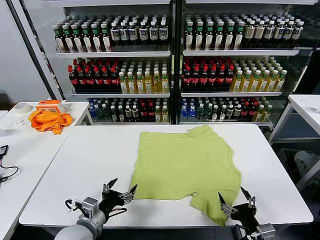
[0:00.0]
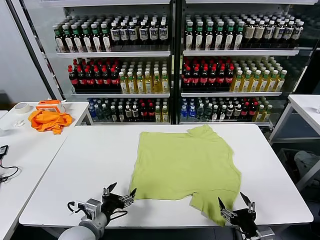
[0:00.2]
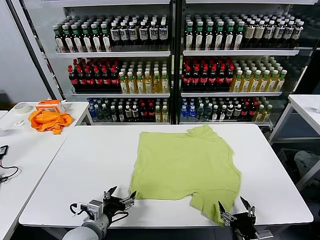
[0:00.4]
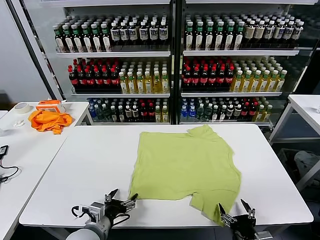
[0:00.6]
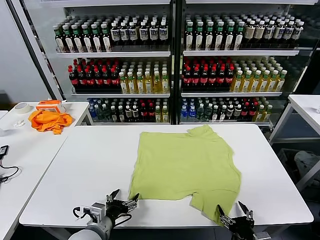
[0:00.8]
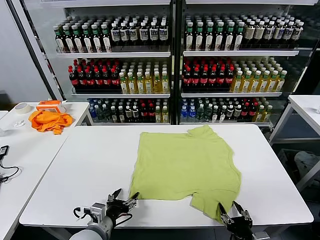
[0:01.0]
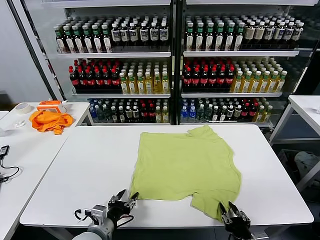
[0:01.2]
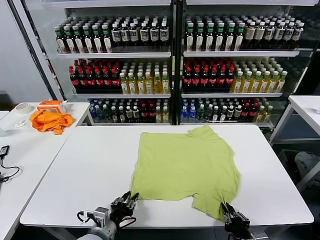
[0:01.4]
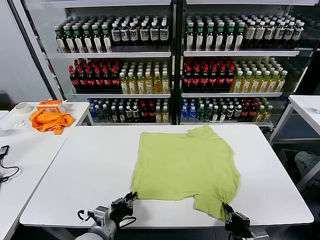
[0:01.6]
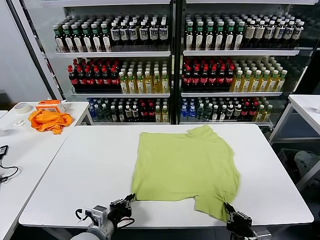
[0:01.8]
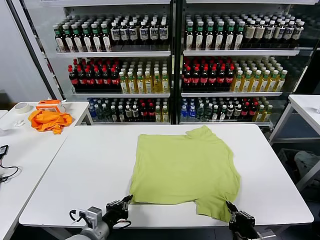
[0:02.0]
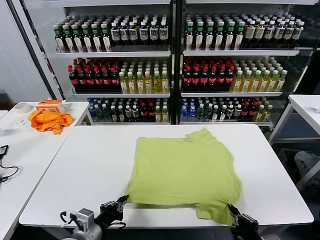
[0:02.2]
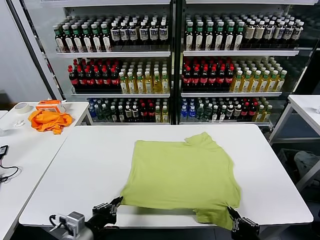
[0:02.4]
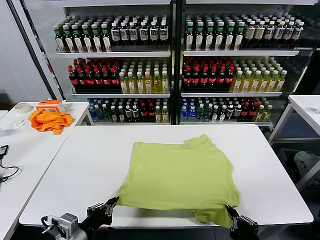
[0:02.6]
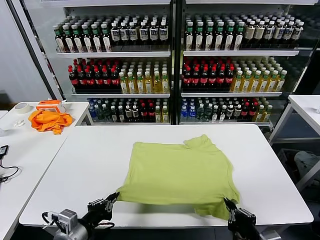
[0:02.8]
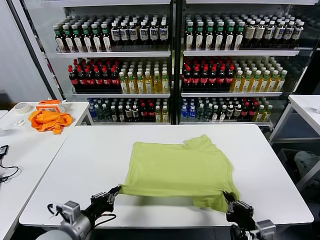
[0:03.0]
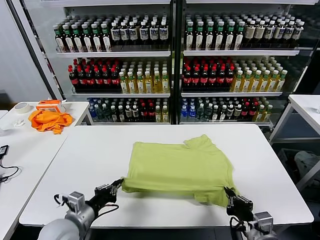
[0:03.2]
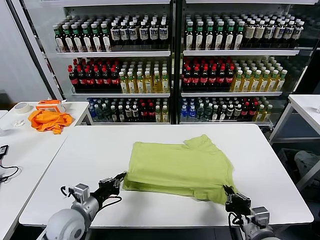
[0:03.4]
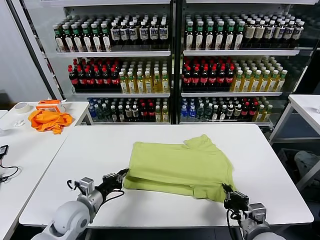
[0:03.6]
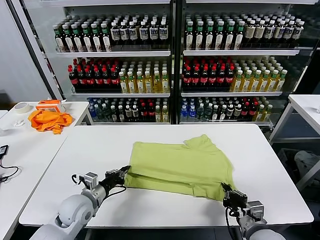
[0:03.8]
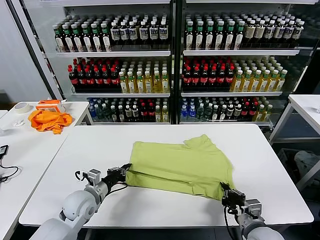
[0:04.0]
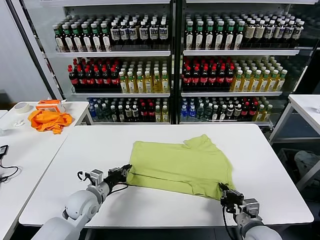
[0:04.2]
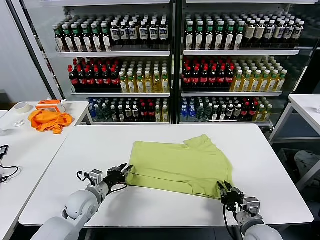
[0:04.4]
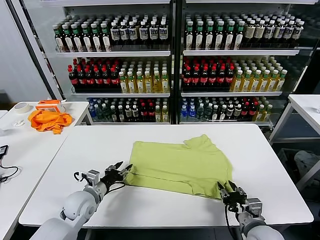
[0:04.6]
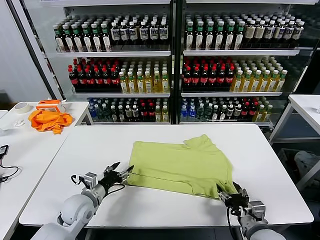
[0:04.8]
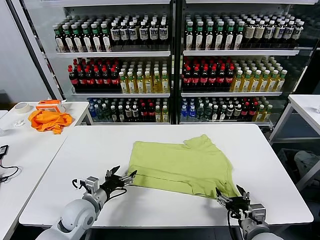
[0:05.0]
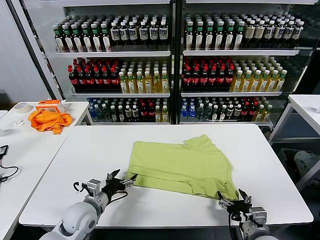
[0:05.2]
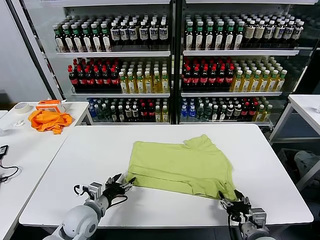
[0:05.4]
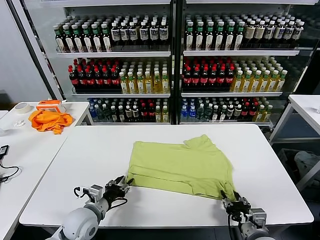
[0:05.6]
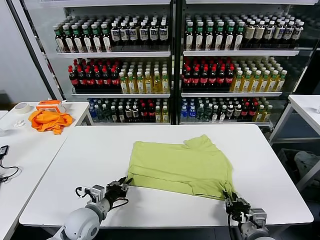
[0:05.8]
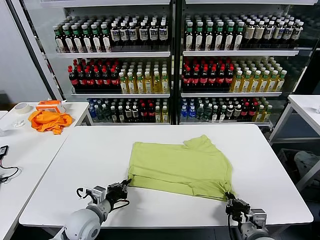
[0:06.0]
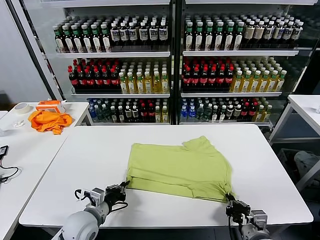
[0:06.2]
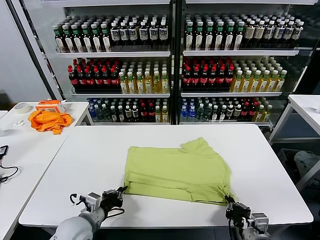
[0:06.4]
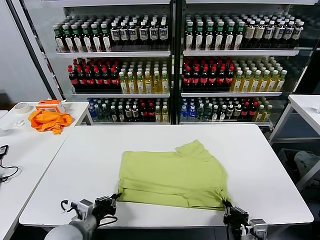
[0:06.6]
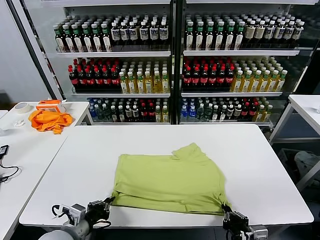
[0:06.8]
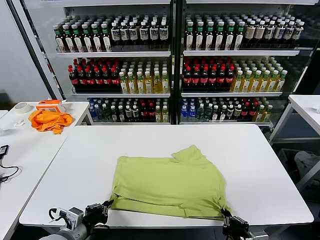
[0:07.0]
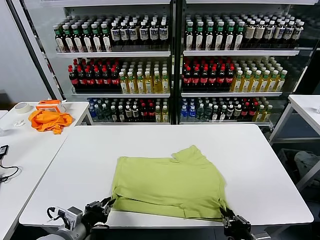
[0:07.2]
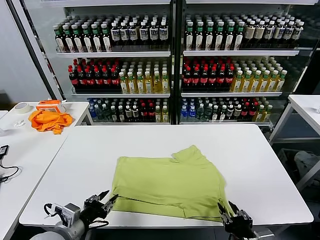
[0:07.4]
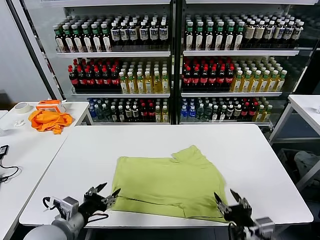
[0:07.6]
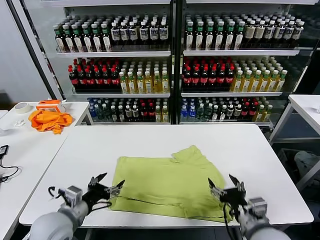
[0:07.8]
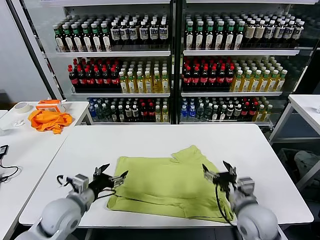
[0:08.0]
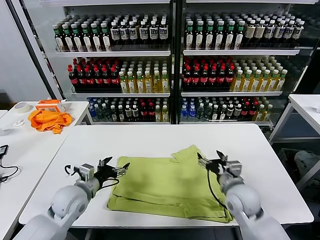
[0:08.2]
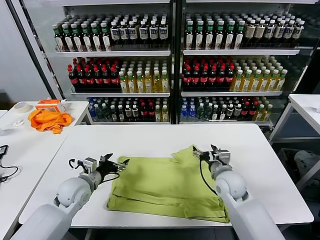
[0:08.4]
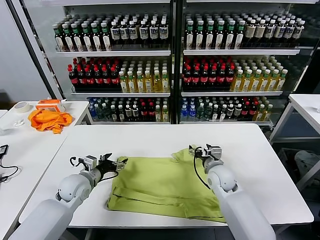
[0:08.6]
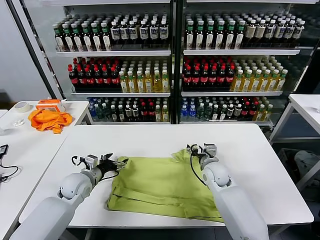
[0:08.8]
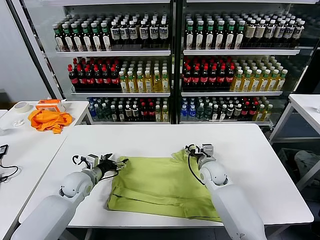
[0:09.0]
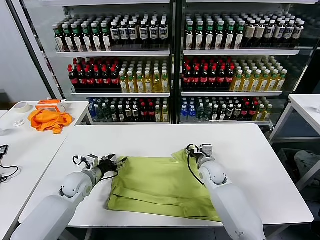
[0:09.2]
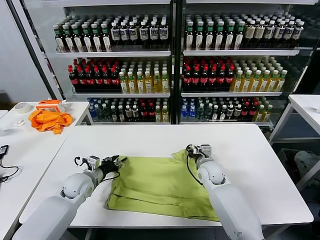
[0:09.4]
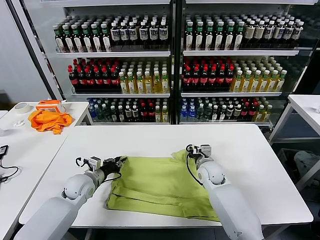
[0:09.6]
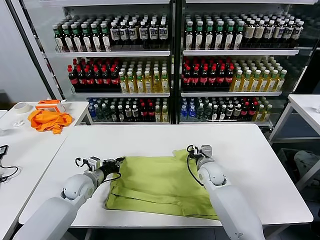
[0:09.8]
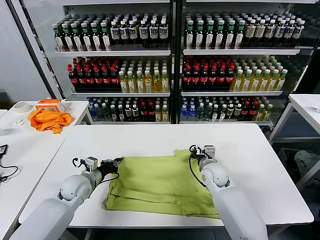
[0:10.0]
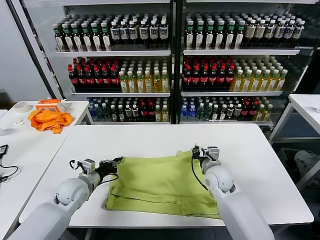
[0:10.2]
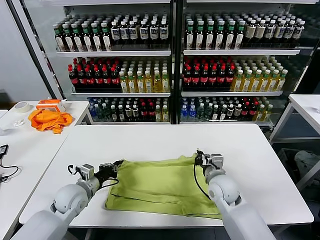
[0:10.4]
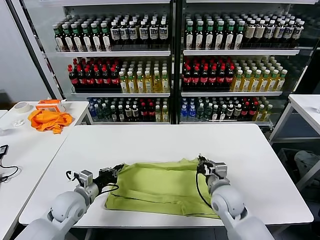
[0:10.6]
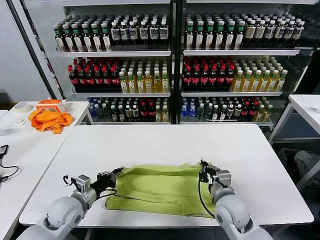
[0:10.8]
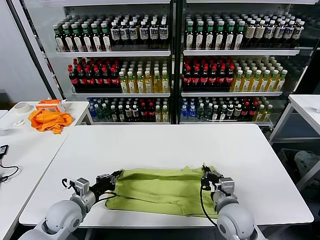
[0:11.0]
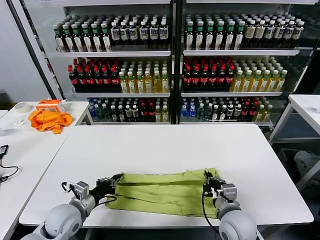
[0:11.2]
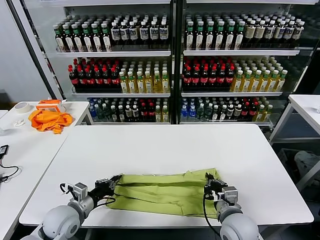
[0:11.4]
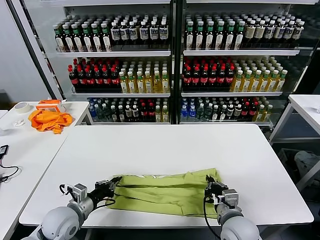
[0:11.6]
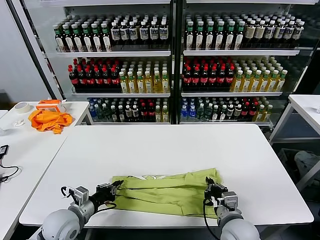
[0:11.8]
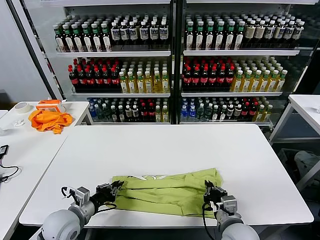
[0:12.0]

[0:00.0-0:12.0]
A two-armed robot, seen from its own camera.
Task of the whole recording: fold and organize the clothes.
Step, 0:00.0 to 0:01.6: use both grippers simultaneously to clamp the lower edge of the clothing fabric.
Step, 0:01.8 to 0:04.4: use both grippers to drag the lower edge of the fabric forward and fold it over the upper edge.
Step, 0:04.8 to 0:07.2: Drag the clothes downward with both gripper.
Step, 0:07.6 to 0:09.8: use both grippers simultaneously to clamp the upper edge of the clothing fabric.
0:01.6 to 0:03.0: The left gripper travels upward and to the left by roughly 10 cm. The right gripper is displaced upward by roughly 5 cm.
0:03.0 to 0:04.4: The left gripper goes approximately 15 cm forward and downward, and opens up. Meanwhile the right gripper goes approximately 5 cm forward, and opens.
0:04.4 to 0:06.0: The left gripper is displaced backward by roughly 5 cm, and opens, then closes once more. Meanwhile the right gripper closes up.
0:06.0 to 0:07.6: The right gripper heads upward, covering some 10 cm, and opens up; the left gripper is displaced upward and backward by approximately 10 cm, and opens up.
0:07.6 to 0:09.0: The right gripper shifts some 30 cm forward. Meanwhile the left gripper travels forward and downward by some 20 cm.
0:09.0 to 0:10.4: The left gripper heads backward, covering approximately 5 cm, and closes up; the right gripper goes approximately 10 cm backward, and closes up.
0:10.4 to 0:12.0: The right gripper travels backward by approximately 15 cm. Meanwhile the left gripper is displaced backward by approximately 10 cm.

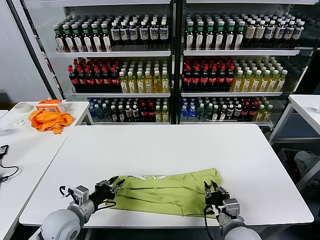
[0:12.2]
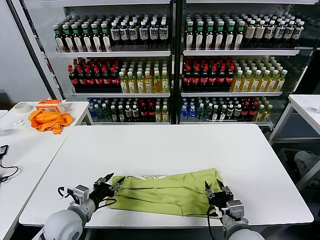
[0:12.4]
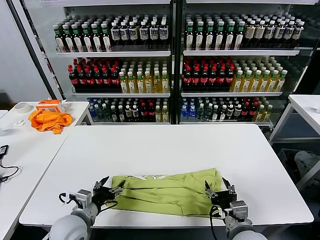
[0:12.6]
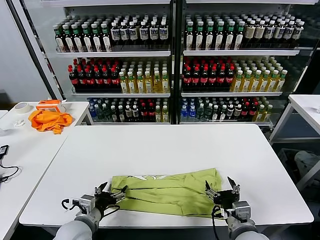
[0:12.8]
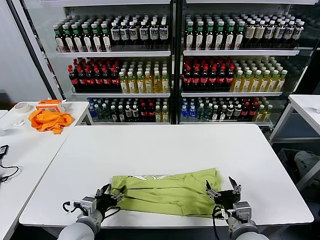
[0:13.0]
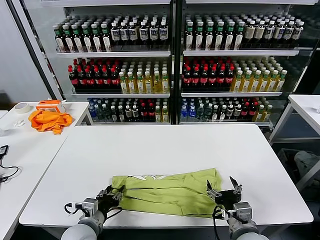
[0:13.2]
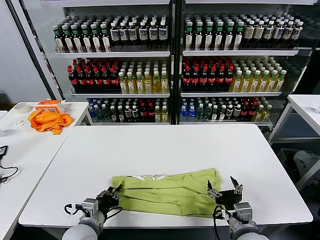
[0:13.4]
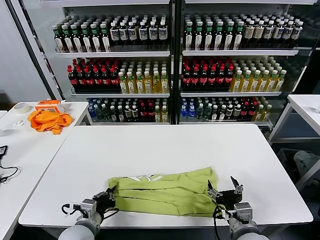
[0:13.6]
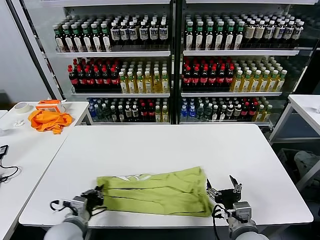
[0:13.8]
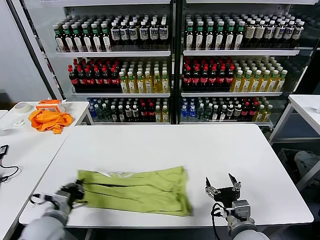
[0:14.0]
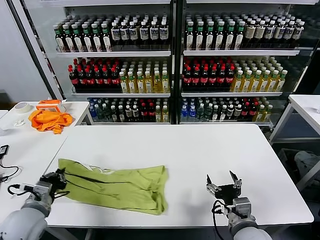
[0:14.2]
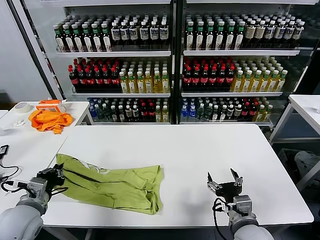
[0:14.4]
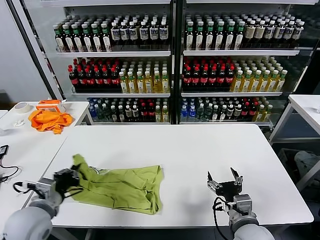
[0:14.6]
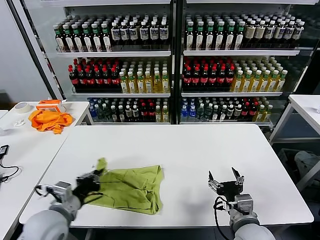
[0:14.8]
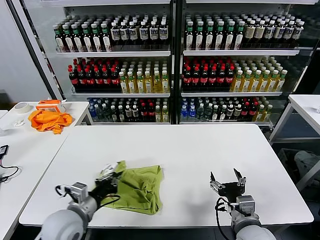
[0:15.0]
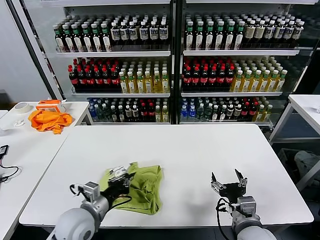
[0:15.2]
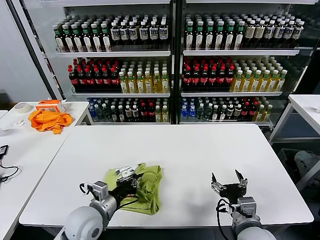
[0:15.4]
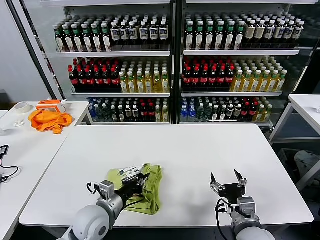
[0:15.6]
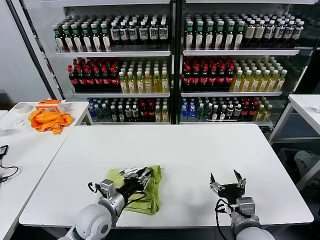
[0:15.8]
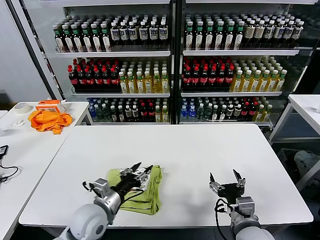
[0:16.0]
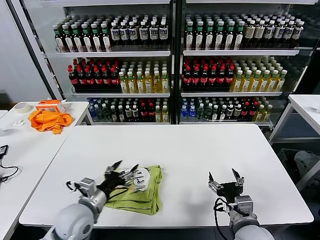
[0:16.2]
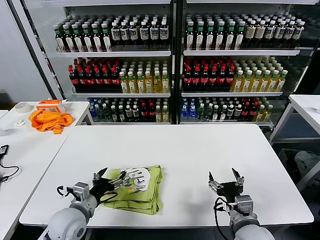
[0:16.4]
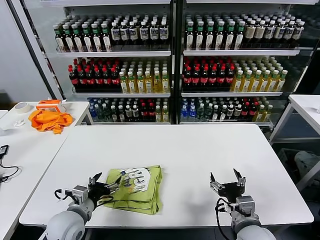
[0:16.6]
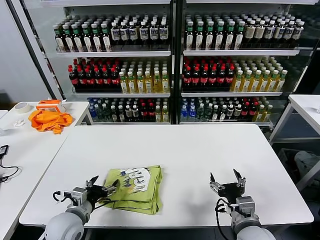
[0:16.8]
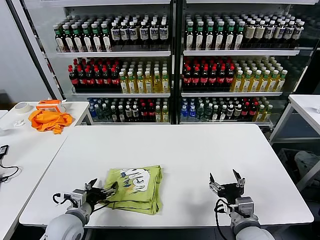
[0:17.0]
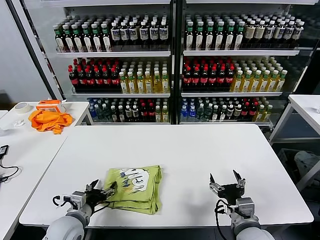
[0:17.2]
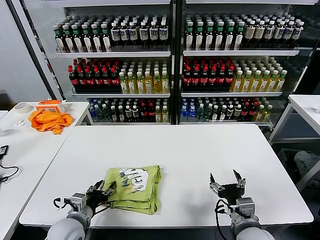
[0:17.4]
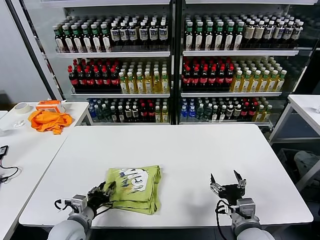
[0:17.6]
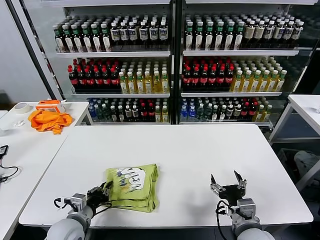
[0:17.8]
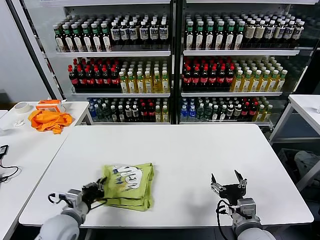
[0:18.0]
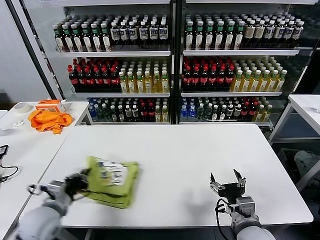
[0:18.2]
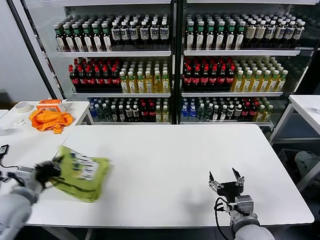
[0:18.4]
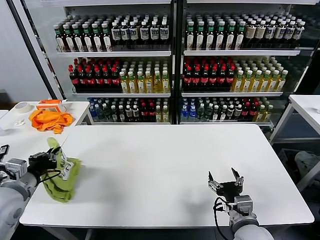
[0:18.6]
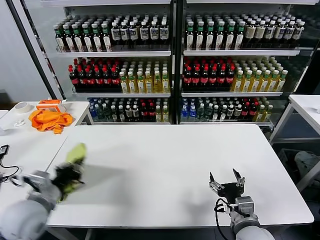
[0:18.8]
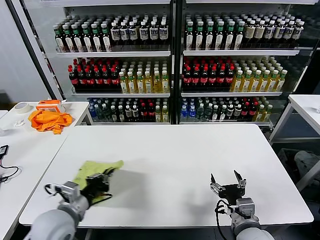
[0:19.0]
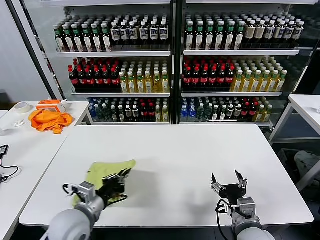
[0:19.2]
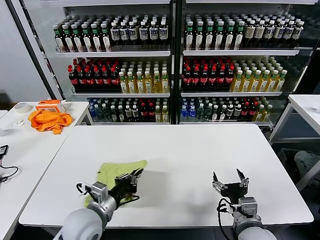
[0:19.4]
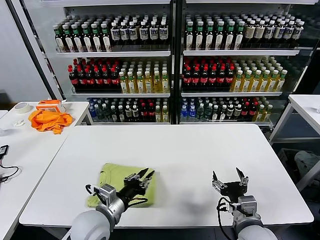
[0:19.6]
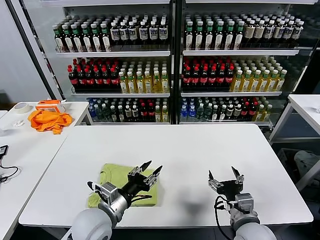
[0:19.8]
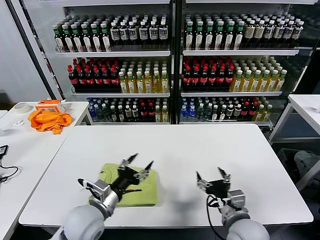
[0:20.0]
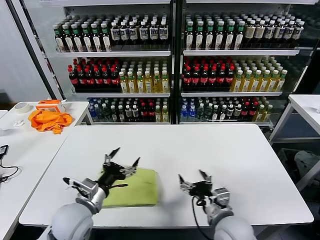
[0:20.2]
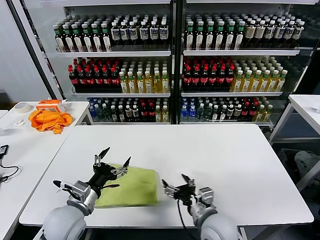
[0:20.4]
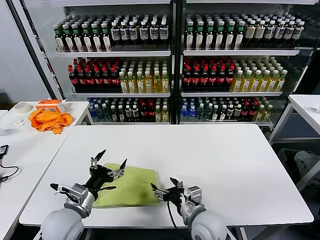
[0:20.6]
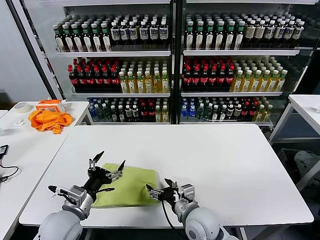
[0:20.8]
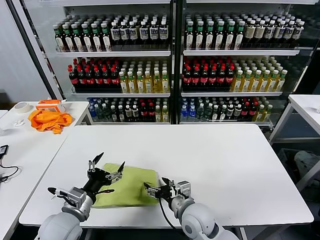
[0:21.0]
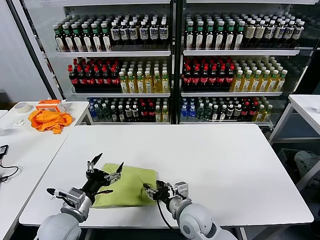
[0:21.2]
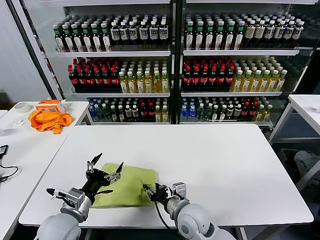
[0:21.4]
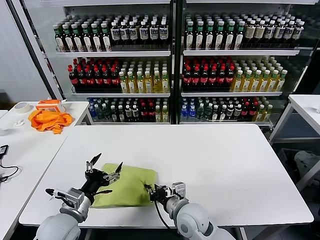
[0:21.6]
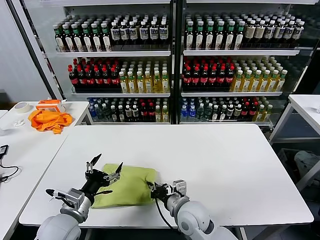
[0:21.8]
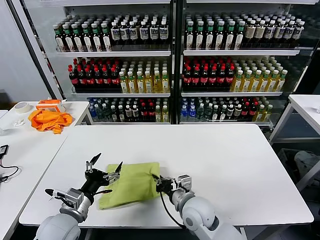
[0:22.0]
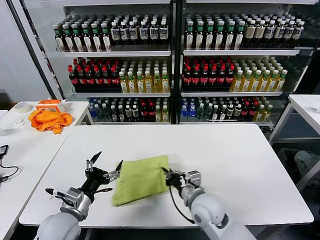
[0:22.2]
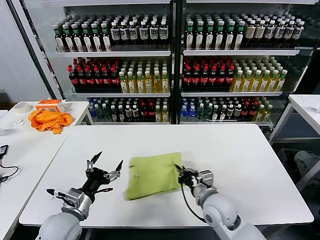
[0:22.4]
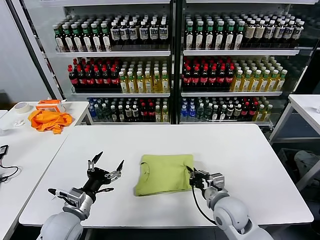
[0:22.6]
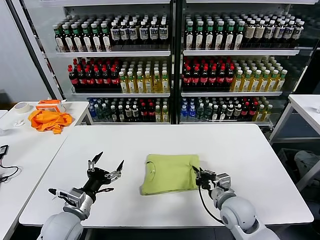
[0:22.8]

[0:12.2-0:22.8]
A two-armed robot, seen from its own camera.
Task of the whole recording: fold and organize the clothes.
Step, 0:12.4 to 0:13.6: use the left gripper to clamp the left edge of the fabric.
Step, 0:13.8 to 0:15.8: use the left gripper to drag the left edge of the fabric to the left and folds it over the right edge.
Step, 0:16.0 to 0:19.6: Flip the folded clothes over with left gripper.
0:12.2 to 0:13.8: The left gripper opens and closes again; the right gripper opens up.
0:13.8 to 0:15.2: The left gripper moves about 10 cm to the left and comes back.
0:15.2 to 0:16.8: The left gripper ends up roughly 5 cm from where it was, and opens up.
0:16.8 to 0:18.2: The left gripper moves some 5 cm, and closes up.
0:18.2 to 0:19.8: The left gripper heads to the right, covering about 15 cm, and opens.
0:19.8 to 0:21.2: The right gripper is displaced to the left and forward by about 15 cm; the left gripper goes approximately 10 cm to the left, and opens up.
0:21.2 to 0:22.8: The right gripper heads to the right, covering about 15 cm, and closes up.
